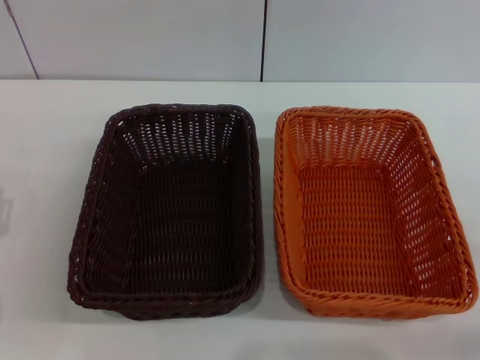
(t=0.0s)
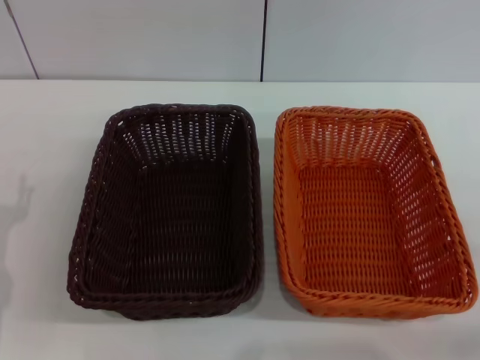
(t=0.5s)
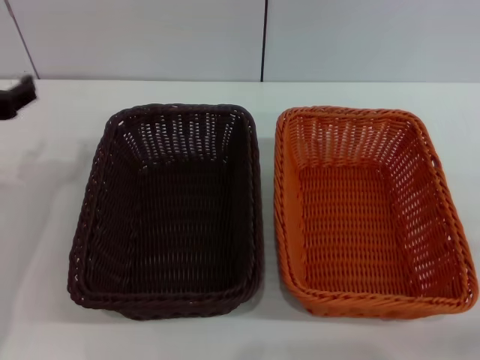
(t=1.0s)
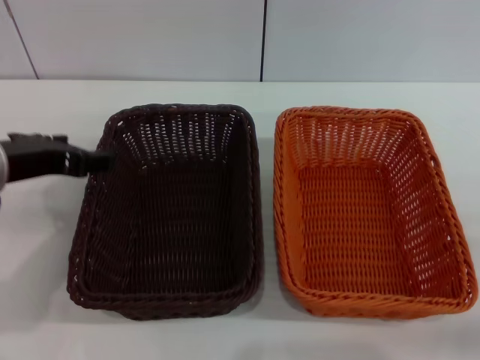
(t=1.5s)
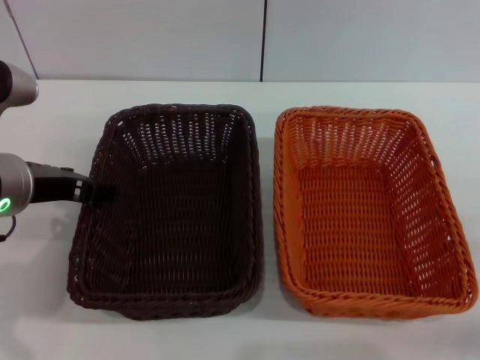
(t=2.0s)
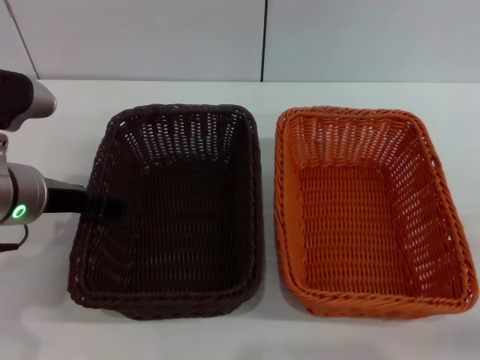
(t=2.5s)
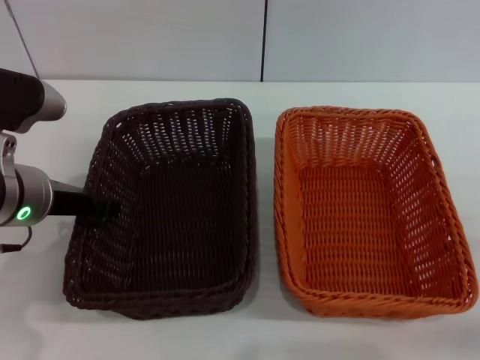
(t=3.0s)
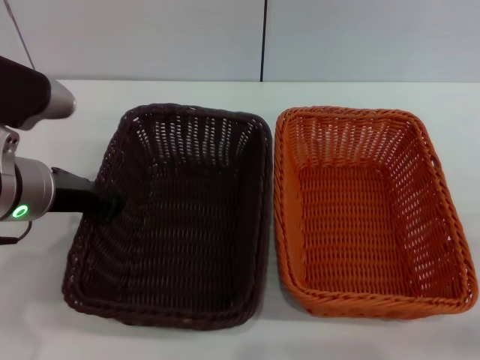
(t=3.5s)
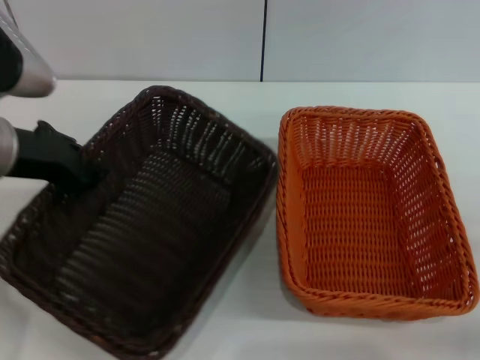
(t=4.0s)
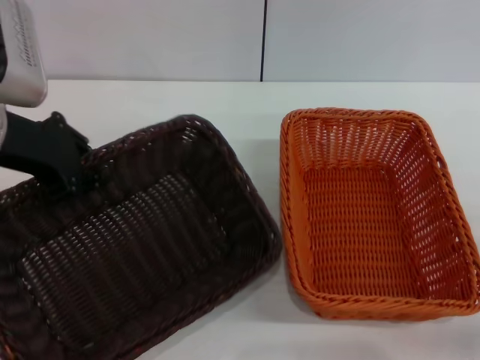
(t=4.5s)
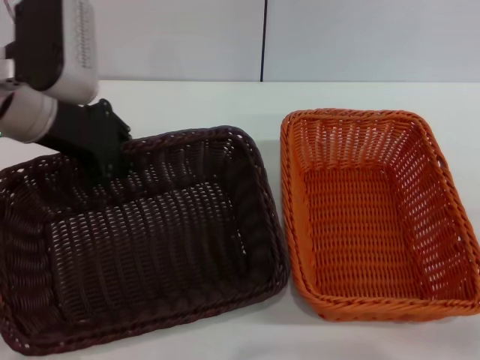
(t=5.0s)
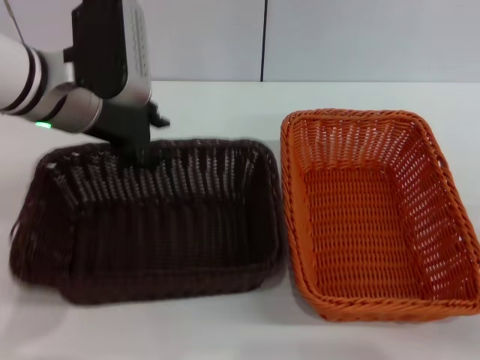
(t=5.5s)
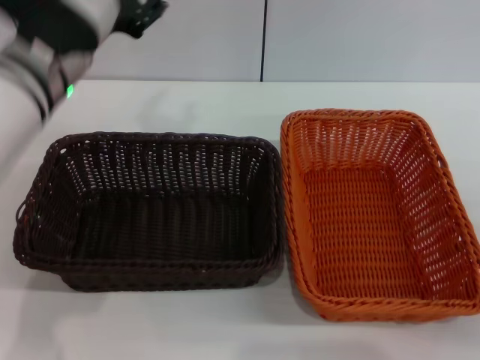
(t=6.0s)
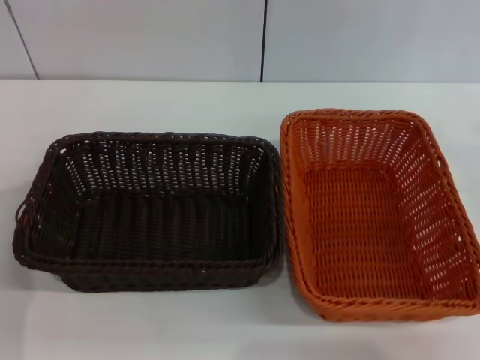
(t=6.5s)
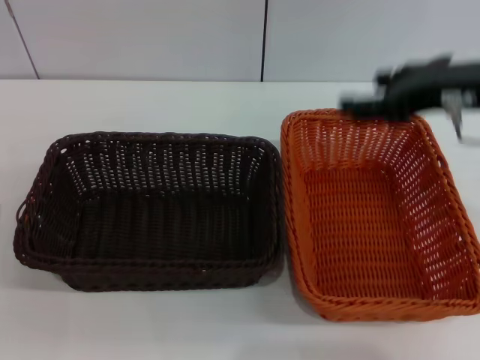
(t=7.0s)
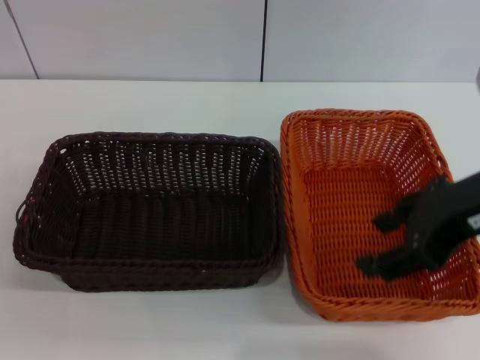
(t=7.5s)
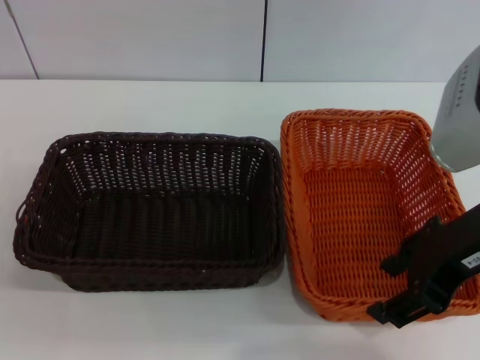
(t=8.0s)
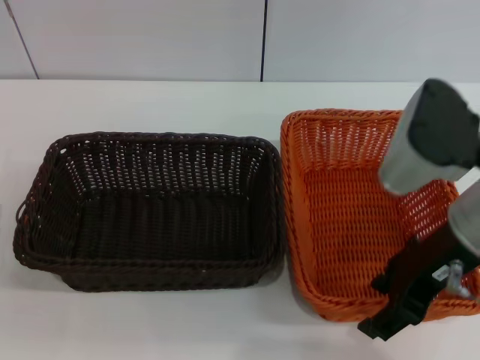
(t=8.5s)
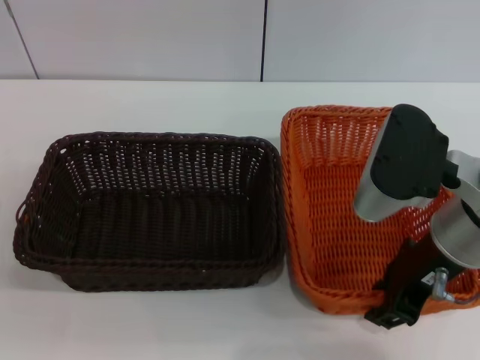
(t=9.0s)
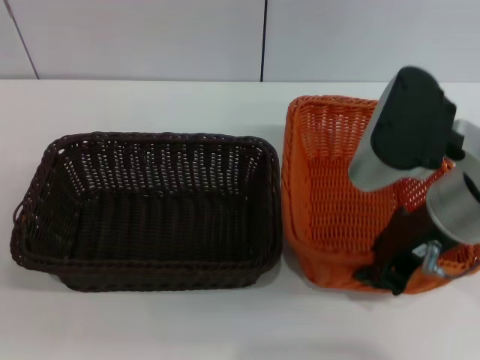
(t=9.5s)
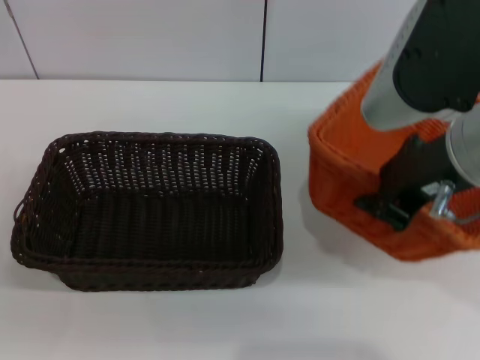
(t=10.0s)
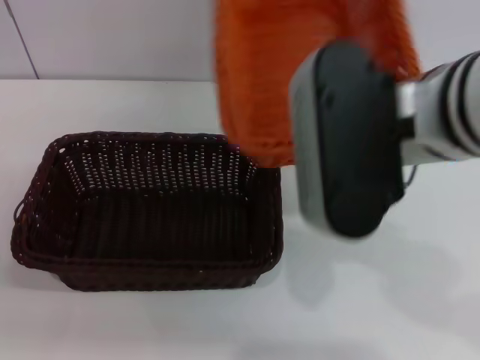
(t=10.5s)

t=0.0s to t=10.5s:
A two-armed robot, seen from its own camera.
Step, t=0.0s to t=4.0s: Pick up the dark basket with the left gripper.
Step, t=4.5s to t=5.5s: Place the dark basket in the center of view with the left gripper.
Step, t=6.0s to t=9.5s: Pick up the light basket with the right gripper.
t=0.0s to t=2.0s: The left gripper moves upward, to the right and forward, roughly 20 cm.
t=2.0s to t=4.0s: The left gripper closes up.
t=4.0s to t=6.5s: The right gripper is displaced forward, upward and to the left by roughly 15 cm. Meanwhile the left gripper shifts about 15 cm downward and backward, and opens up.
t=6.5s to t=8.5s: The right gripper is displaced to the left and upward by some 10 cm.
t=8.5s to t=10.5s: The right gripper is displaced to the left and upward by some 10 cm, and closes its fingers.

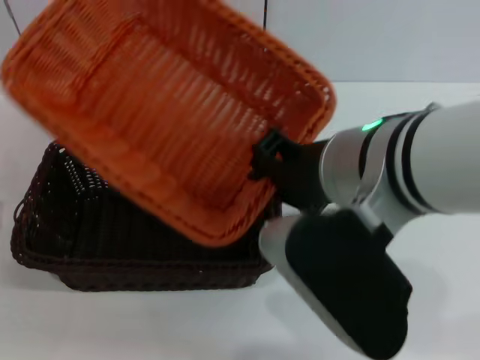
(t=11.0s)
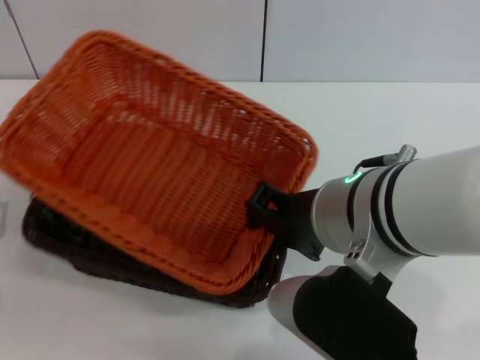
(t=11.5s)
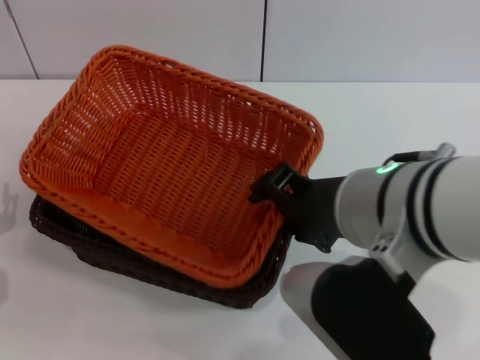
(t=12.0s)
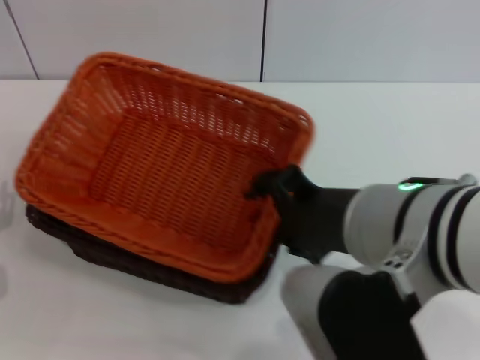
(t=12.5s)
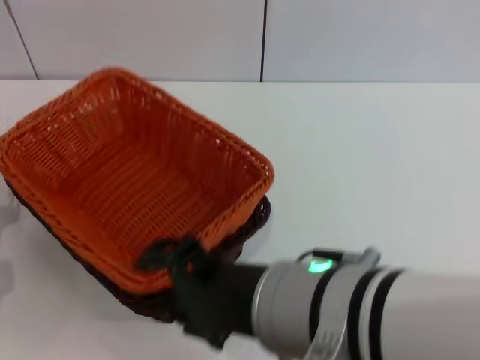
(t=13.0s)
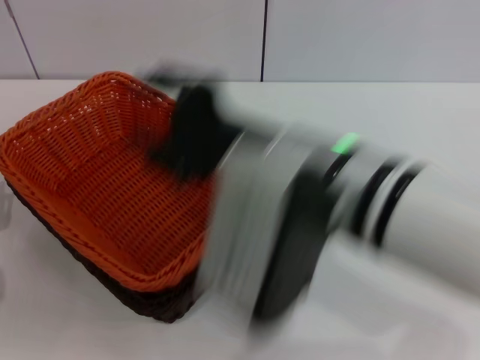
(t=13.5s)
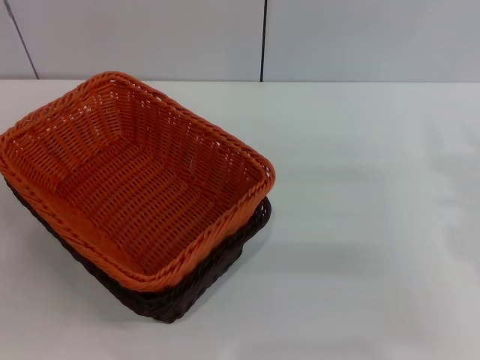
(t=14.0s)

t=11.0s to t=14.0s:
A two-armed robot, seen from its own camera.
Step, t=11.0s to t=13.0s: Place the light basket on the dark basket with the right gripper.
t=11.0s to t=12.5s: The right gripper opens.
t=12.5s to t=14.0s: The right gripper is displaced to the right, downward and forward by approximately 20 cm.
